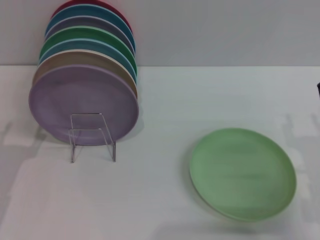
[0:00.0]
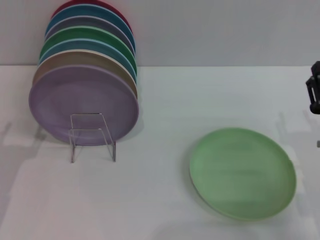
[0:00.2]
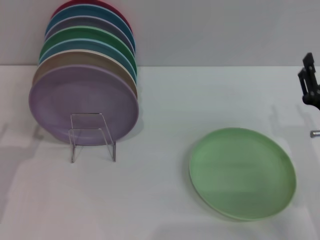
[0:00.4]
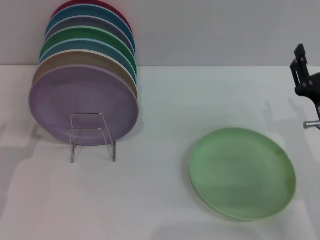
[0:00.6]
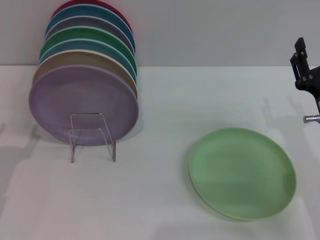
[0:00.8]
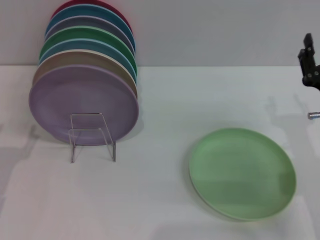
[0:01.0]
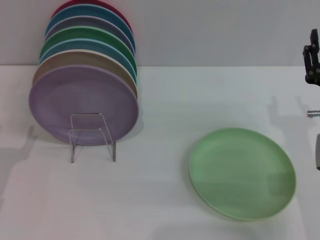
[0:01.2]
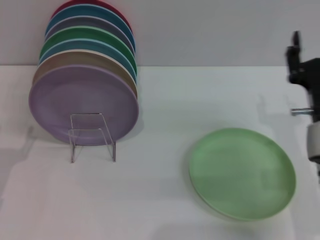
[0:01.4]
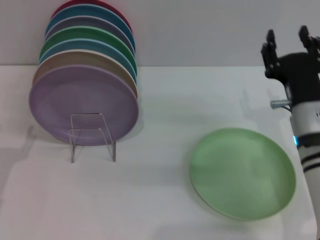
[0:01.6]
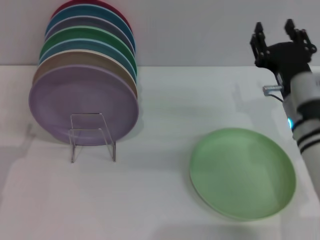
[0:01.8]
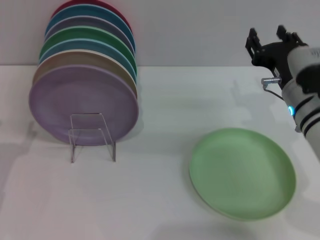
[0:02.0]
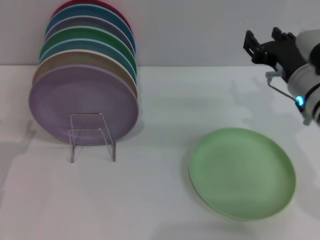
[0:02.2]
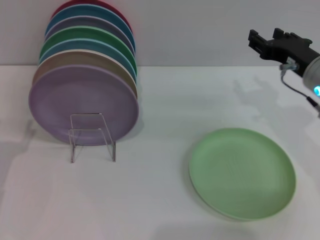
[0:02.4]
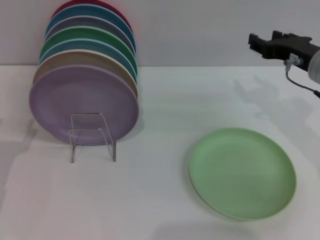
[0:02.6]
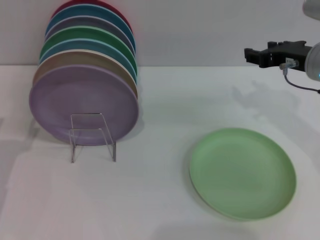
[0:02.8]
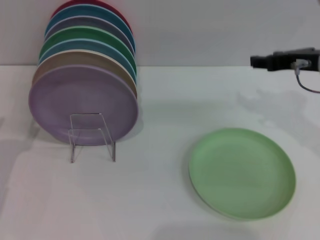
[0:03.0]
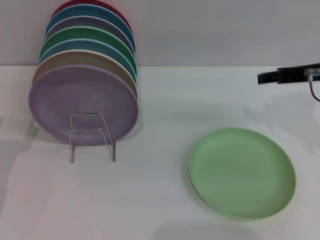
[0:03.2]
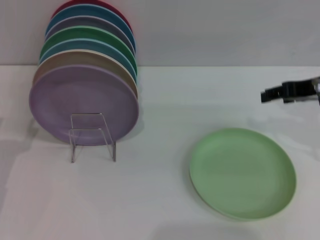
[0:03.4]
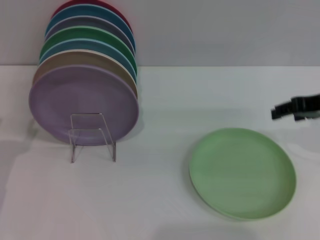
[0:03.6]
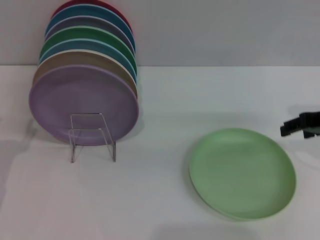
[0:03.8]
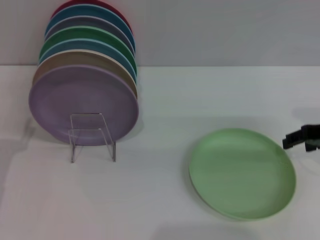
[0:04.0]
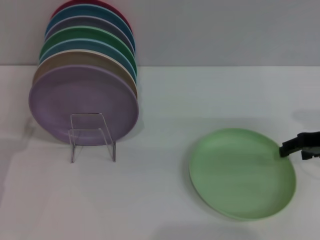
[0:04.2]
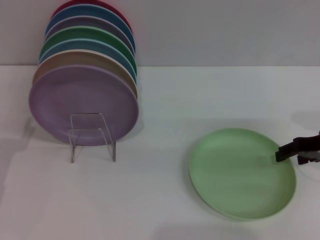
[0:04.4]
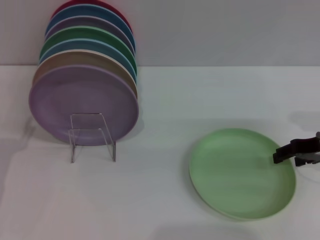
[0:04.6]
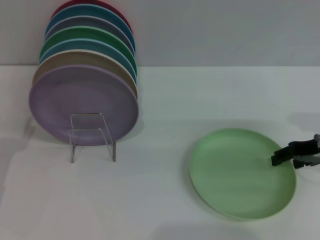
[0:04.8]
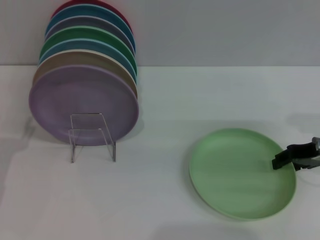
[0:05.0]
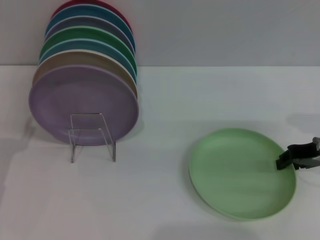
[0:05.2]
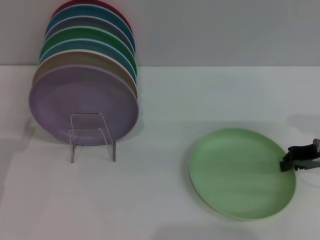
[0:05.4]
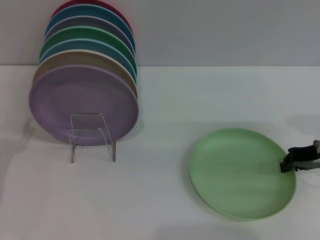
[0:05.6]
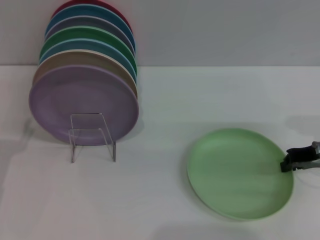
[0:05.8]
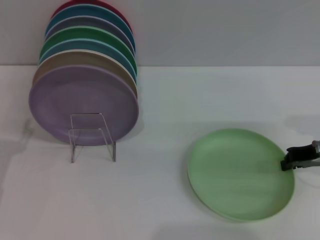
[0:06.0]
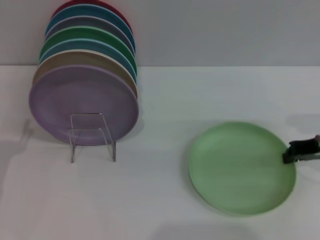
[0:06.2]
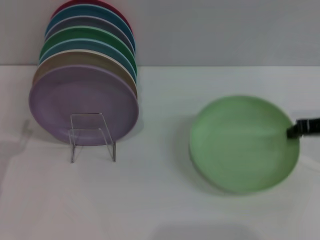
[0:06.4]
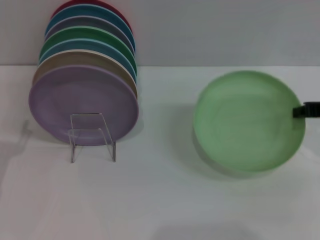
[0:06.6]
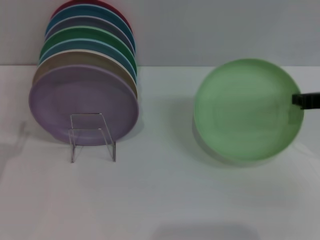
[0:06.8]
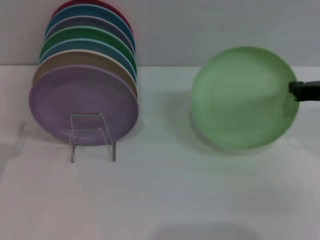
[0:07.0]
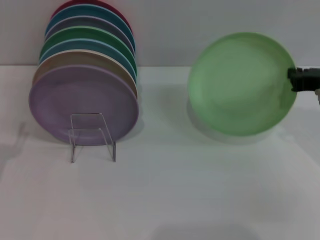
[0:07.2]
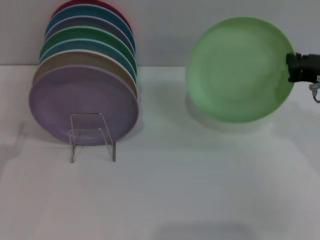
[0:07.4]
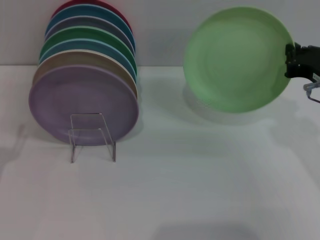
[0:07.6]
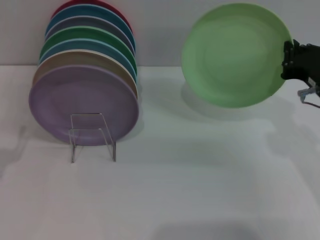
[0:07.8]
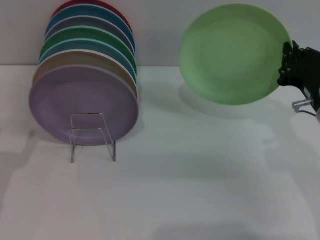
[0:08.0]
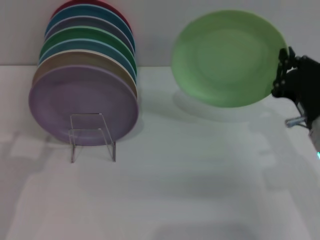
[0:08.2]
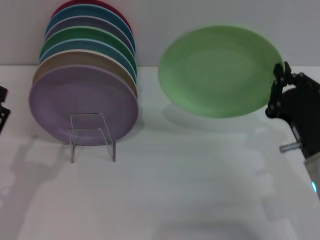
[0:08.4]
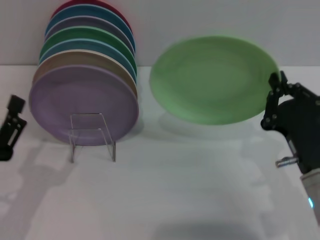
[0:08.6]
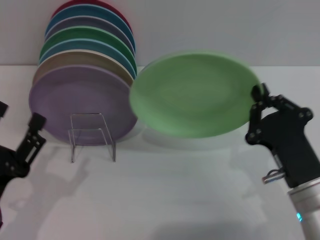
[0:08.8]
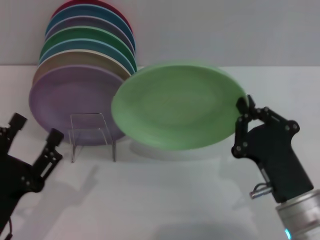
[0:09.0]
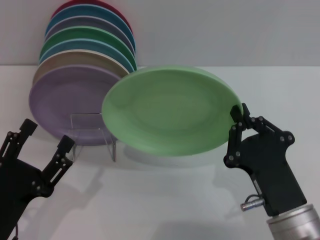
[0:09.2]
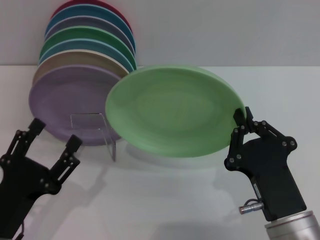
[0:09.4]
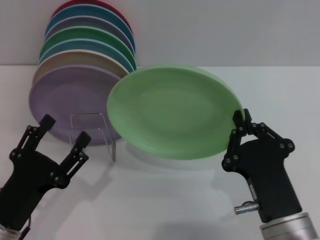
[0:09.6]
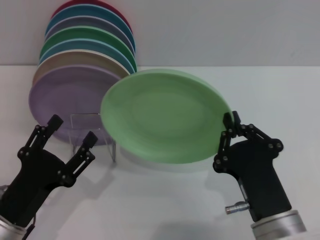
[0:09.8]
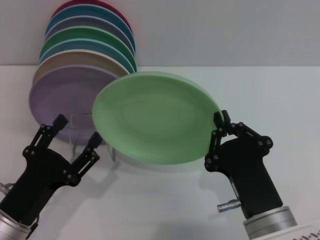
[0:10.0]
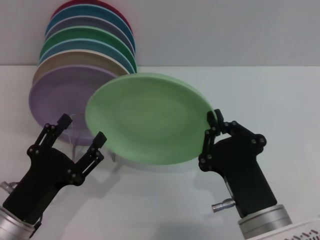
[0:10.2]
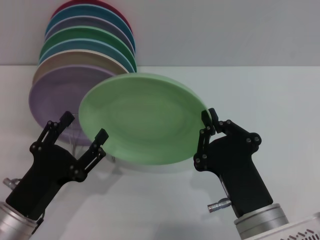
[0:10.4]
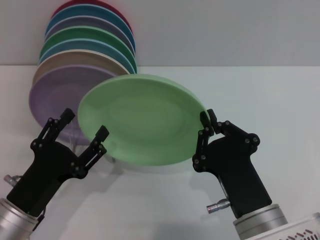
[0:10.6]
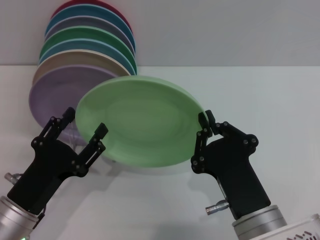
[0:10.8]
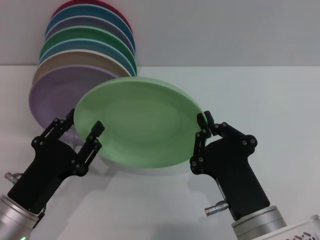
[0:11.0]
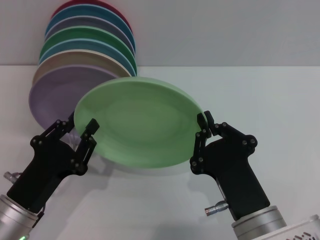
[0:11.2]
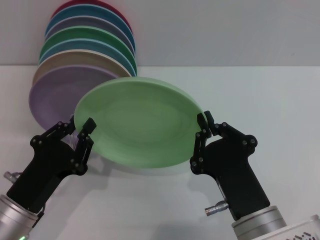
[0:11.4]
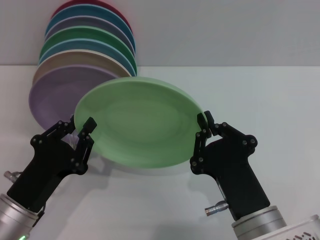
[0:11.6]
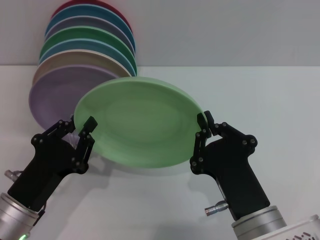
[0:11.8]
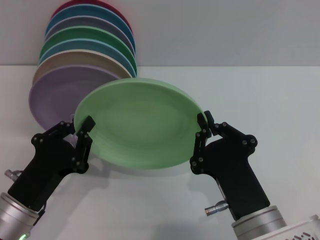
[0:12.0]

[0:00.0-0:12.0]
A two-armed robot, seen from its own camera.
Task of the whole recording: Grip the plate with one hand, pass it to the other, then set it on the shelf.
Step, 0:00.0 to 0:06.8: Pick up the plate with the right gripper.
0:00.0 to 0:01.6: The right gripper moves forward and to the left, roughly 10 cm.
0:01.6 to 0:03.0: The right gripper moves upward, forward and to the right, roughly 15 cm.
0:03.0 to 0:04.4: The right gripper goes some 10 cm downward and to the right.
0:04.4 to 0:06.0: The right gripper closes its fingers.
0:06.0 to 0:07.6: The right gripper ends up roughly 5 cm from where it was.
0:07.6 to 0:09.0: The left gripper heads to the right and backward, covering about 10 cm; the right gripper shifts roughly 20 cm backward, downward and to the left.
0:09.0 to 0:10.4: The right gripper moves to the left, approximately 5 cm.
0:10.4 to 0:12.0: The left gripper closes.

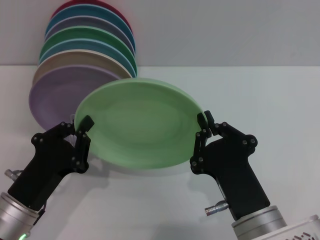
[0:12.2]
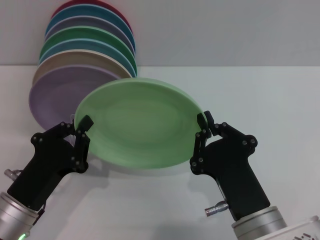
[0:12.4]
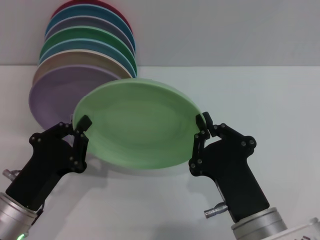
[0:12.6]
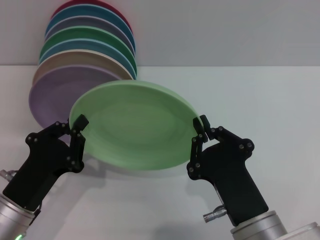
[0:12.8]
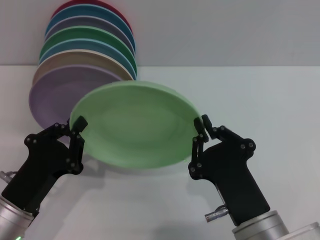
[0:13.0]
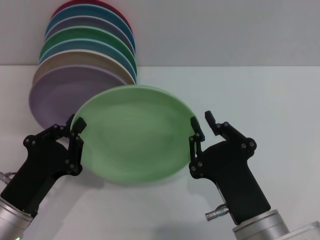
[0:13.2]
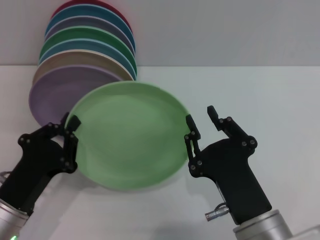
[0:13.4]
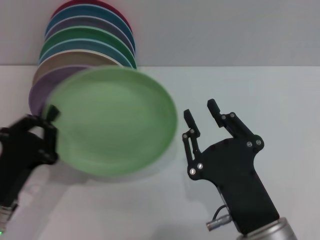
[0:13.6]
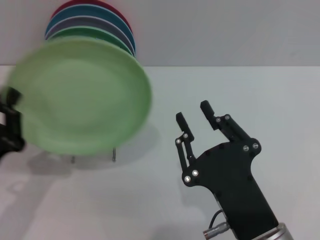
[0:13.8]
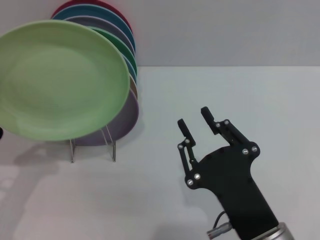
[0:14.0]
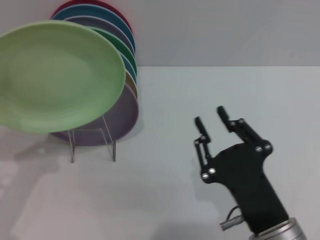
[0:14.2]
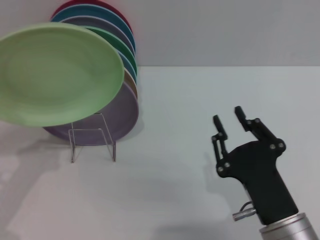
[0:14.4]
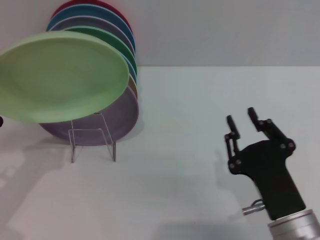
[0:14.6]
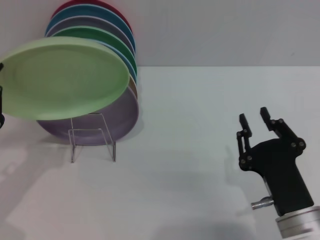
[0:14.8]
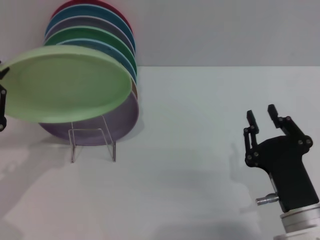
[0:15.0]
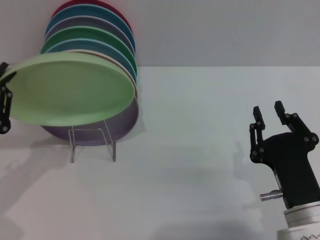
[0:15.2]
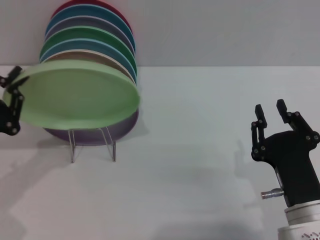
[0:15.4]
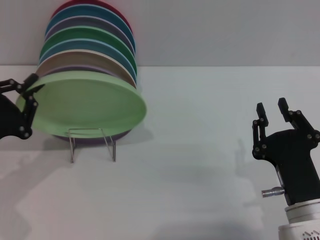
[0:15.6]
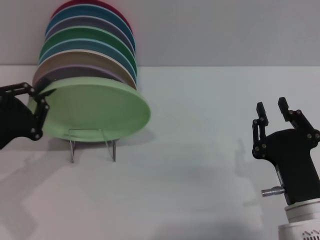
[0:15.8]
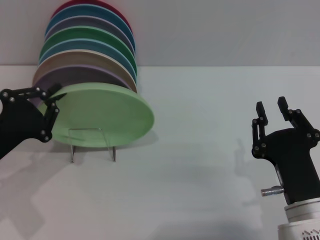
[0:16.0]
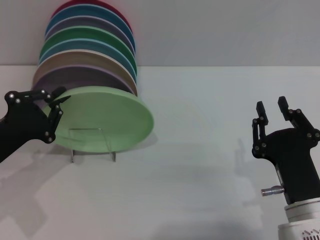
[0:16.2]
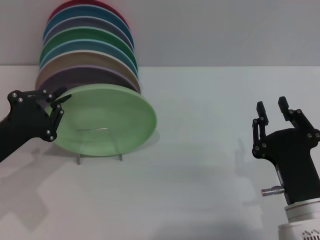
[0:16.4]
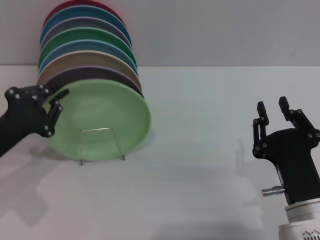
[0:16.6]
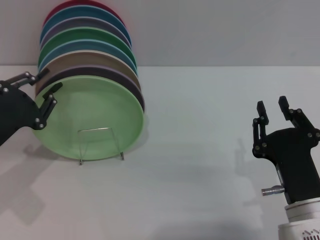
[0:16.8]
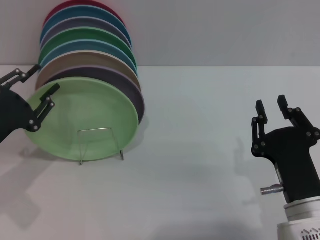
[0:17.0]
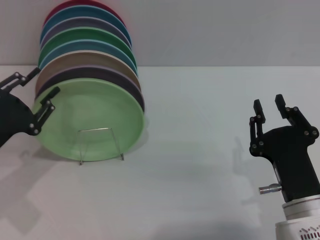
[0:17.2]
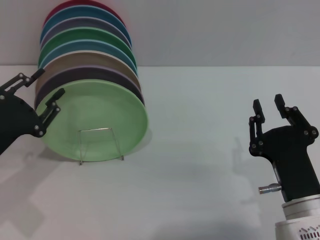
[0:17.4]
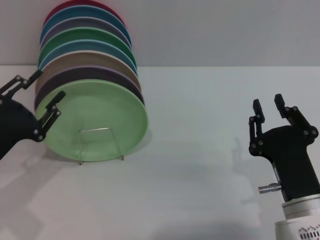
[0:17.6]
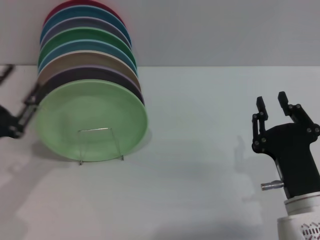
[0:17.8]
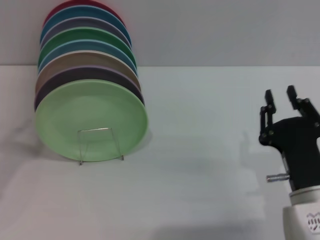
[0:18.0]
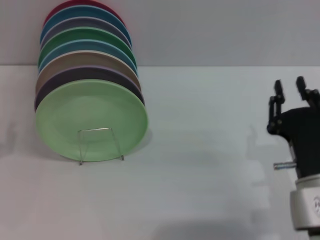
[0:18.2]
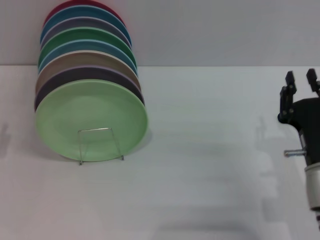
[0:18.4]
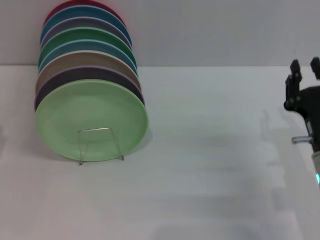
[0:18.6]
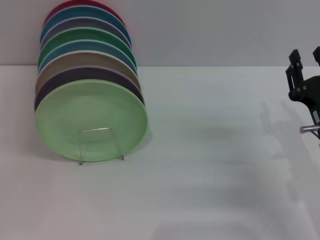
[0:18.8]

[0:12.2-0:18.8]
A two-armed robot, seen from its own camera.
Task of the whole recording: Grip the plate with one hand, pass it to the other, then set it on the shelf.
Step, 0:14.0 to 0:17.2: Place the plate on the shelf with the left gripper.
0:12.2 to 0:13.8: The right gripper opens up, while the left gripper changes place by some 5 cm.
0:13.8 to 0:15.4: The right gripper travels to the right by some 5 cm. Meanwhile the left gripper changes place by roughly 10 cm.
0:15.4 to 0:17.2: The left gripper opens up.
0:17.2 to 0:18.8: The left gripper ends up some 10 cm from where it was, and opens up, while the right gripper goes roughly 10 cm forward and to the right.
